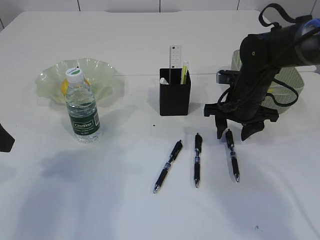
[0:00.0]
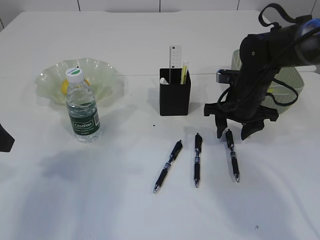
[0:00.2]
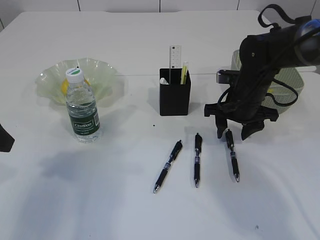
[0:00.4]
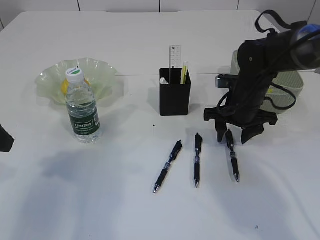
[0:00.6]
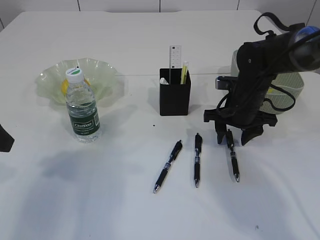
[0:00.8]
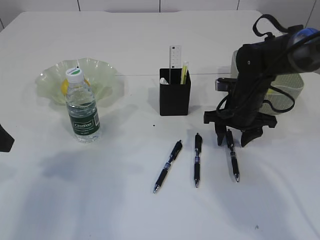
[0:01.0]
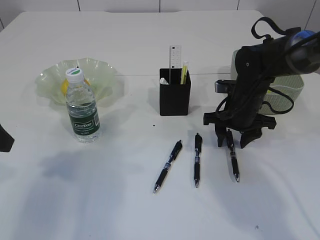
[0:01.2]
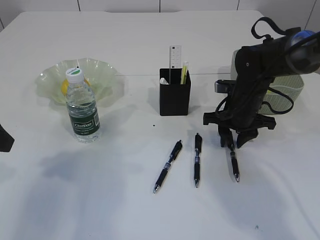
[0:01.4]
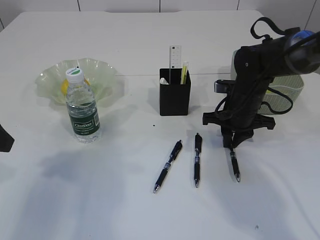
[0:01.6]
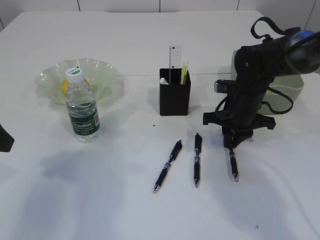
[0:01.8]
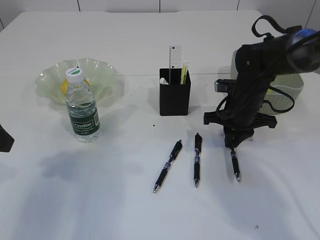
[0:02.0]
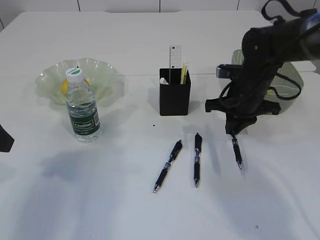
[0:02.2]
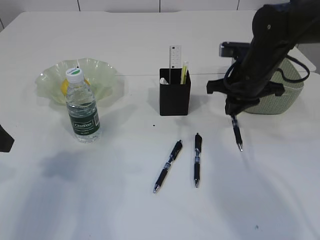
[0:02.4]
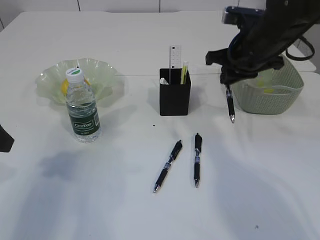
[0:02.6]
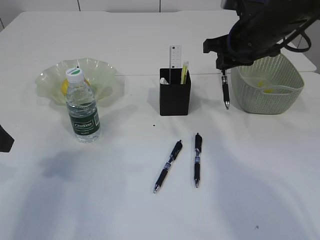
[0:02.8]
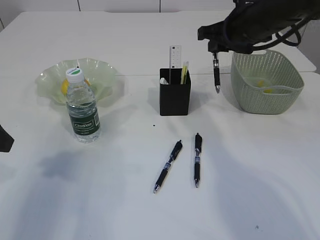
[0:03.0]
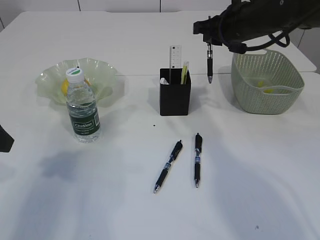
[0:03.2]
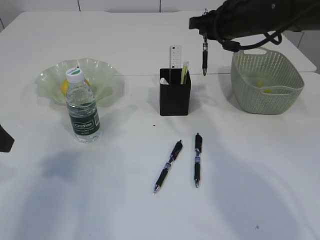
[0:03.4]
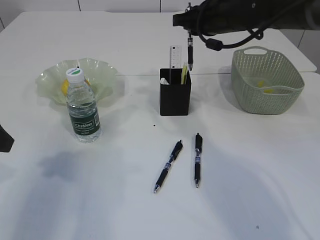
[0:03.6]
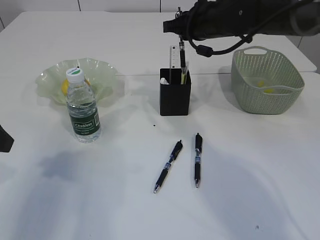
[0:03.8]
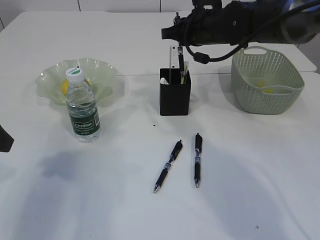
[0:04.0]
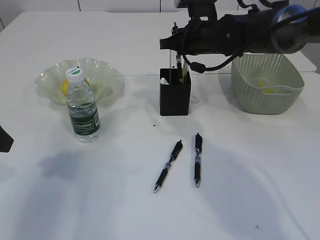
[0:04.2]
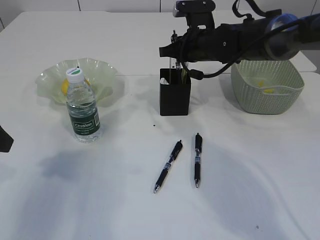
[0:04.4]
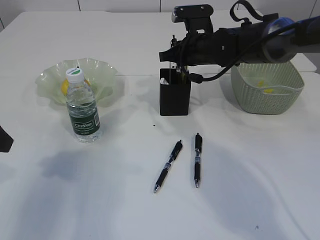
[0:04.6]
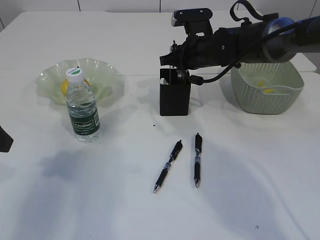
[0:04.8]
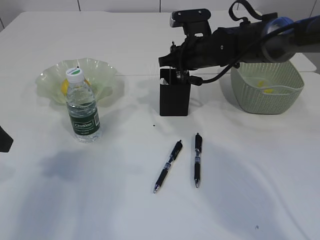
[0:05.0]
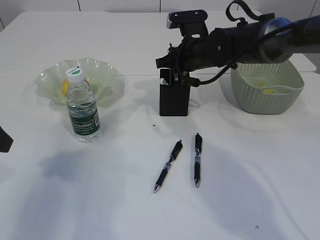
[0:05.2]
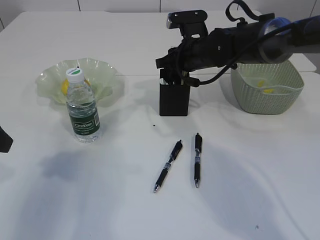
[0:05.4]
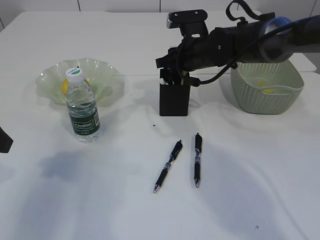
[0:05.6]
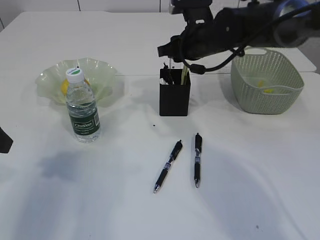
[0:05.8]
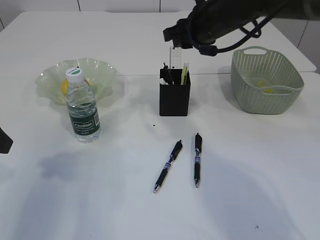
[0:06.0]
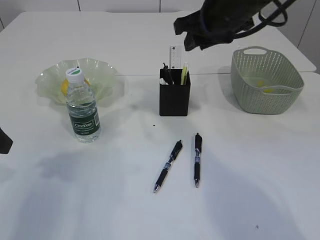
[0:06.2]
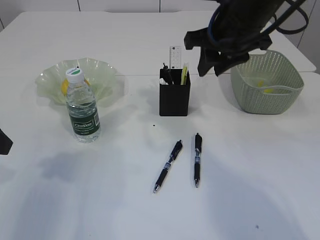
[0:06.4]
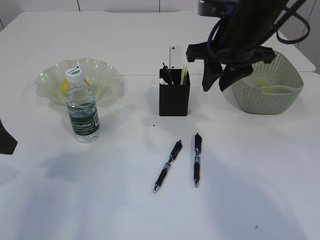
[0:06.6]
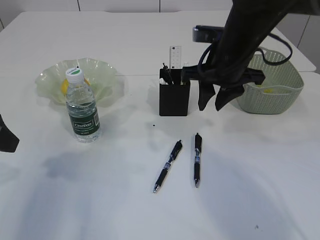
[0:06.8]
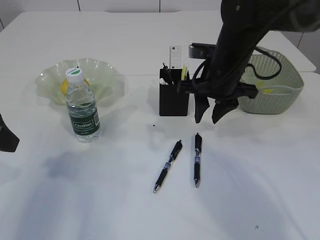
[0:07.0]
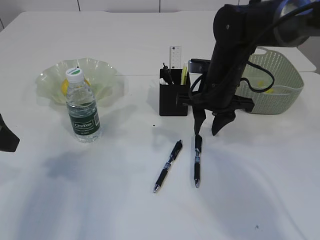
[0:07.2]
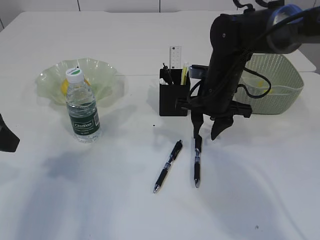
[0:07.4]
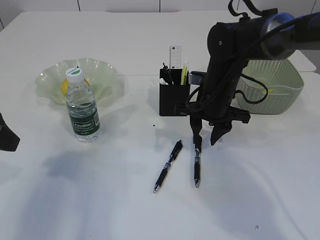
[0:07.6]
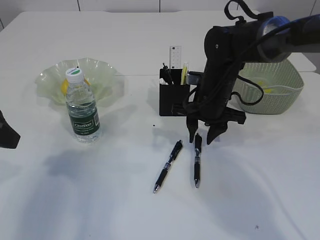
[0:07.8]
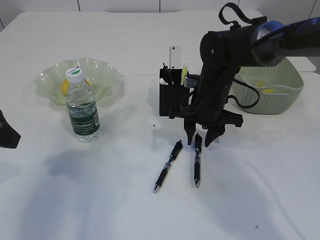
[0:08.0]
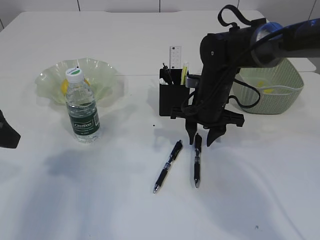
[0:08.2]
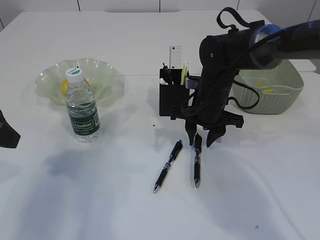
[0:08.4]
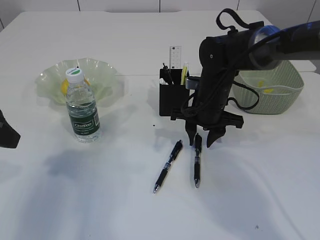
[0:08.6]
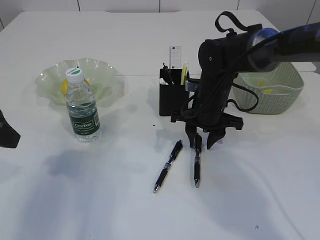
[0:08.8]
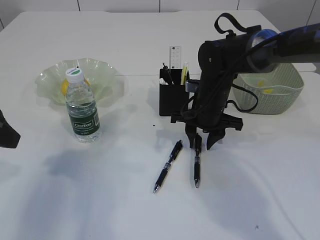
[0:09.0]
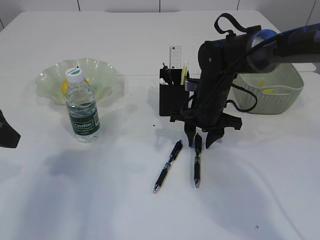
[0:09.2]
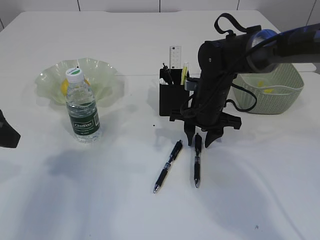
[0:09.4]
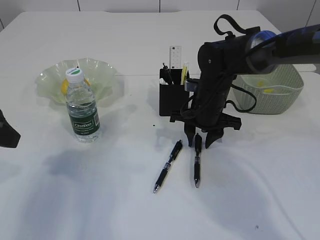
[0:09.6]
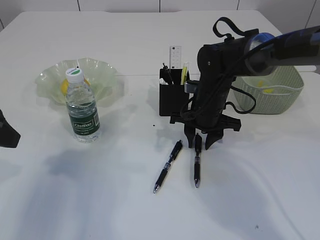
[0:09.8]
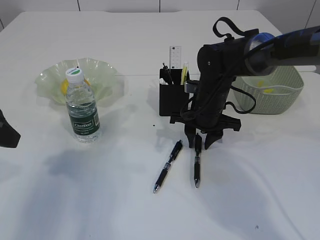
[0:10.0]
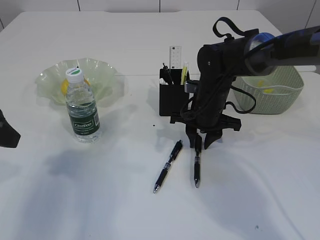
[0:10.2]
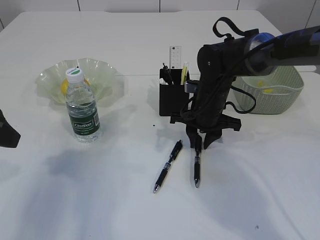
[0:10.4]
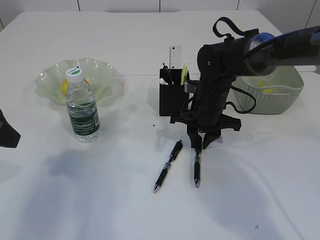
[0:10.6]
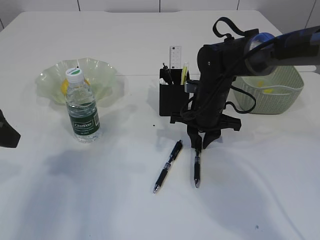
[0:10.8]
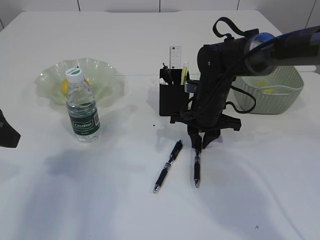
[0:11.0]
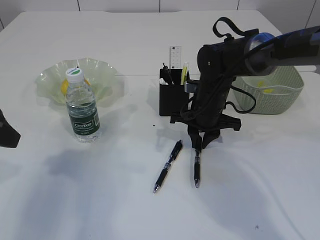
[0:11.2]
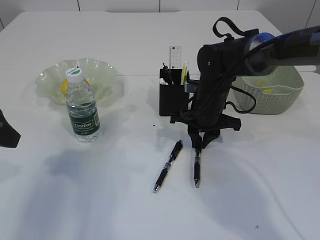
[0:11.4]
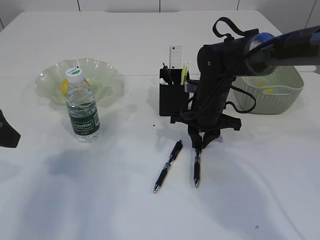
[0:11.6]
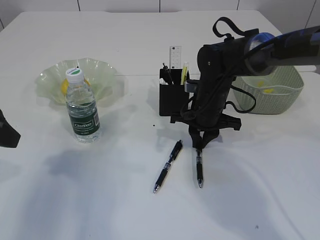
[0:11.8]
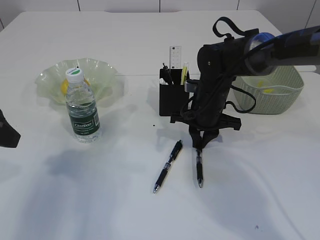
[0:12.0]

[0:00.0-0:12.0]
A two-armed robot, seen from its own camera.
Step, 0:00.0 to 0:02.2: Pick up the pen with right arm.
Step, 0:02.4 to 0:05.8: Place the pen into the pen holder.
0:00.0 to 0:01.6: The right gripper closes up.
0:01.6 to 0:03.0: The right gripper travels upward by roughly 15 cm.
0:03.0 to 0:04.4: The right gripper goes roughly 10 cm downward, to the left and forward.
0:04.4 to 0:06.0: The right gripper heads upward, covering roughly 5 cm, and opens its fingers.
0:06.0 to 0:07.6: The right gripper heads downward, covering roughly 10 cm.
0:07.6 to 0:09.0: The grippers stay close to where they were, moving slightly.
0:09.0 to 0:12.0: Both grippers stay about where they are.

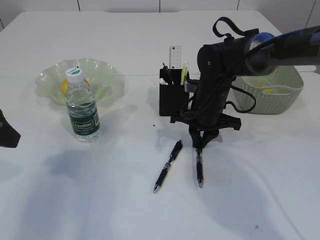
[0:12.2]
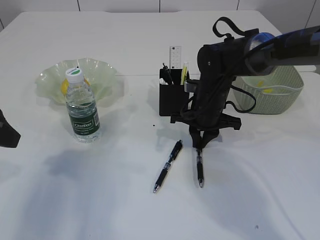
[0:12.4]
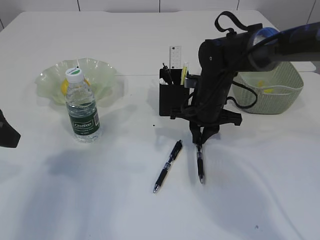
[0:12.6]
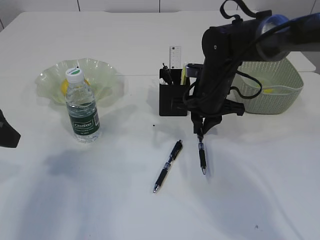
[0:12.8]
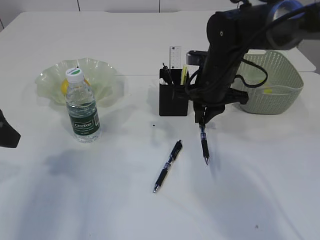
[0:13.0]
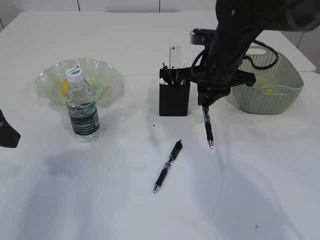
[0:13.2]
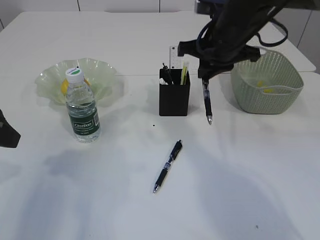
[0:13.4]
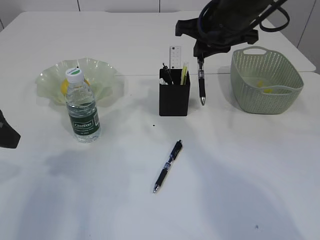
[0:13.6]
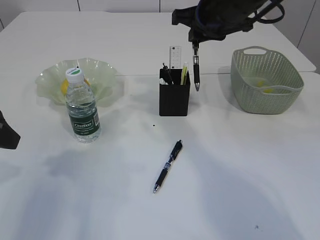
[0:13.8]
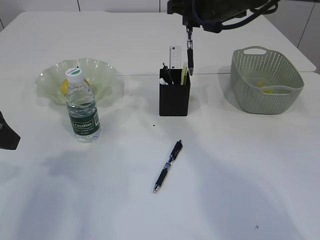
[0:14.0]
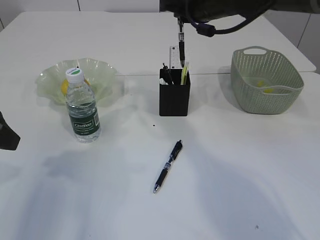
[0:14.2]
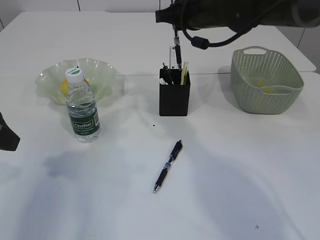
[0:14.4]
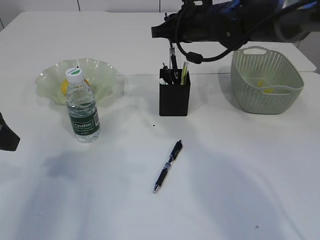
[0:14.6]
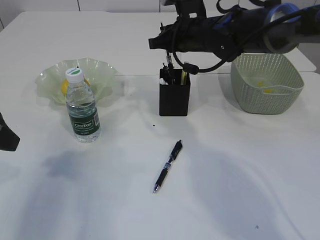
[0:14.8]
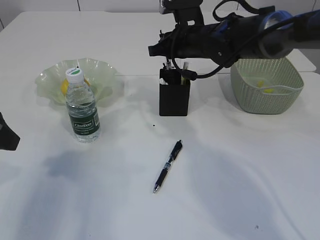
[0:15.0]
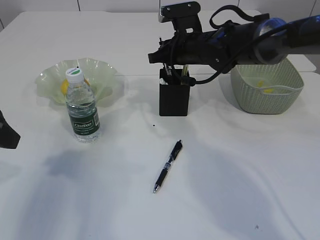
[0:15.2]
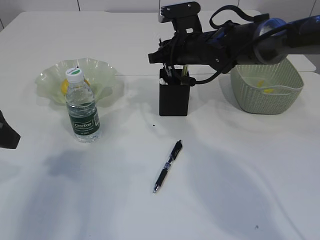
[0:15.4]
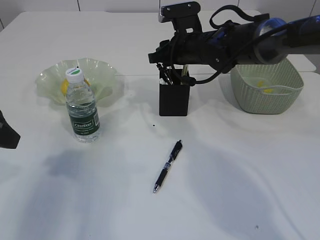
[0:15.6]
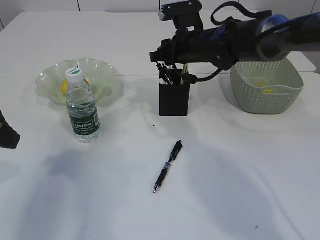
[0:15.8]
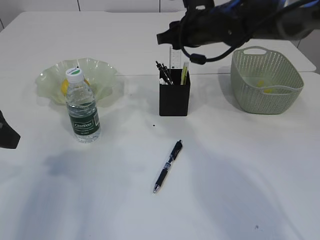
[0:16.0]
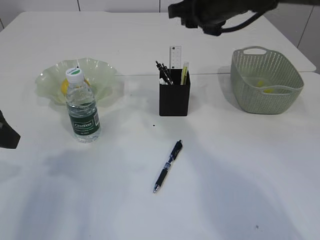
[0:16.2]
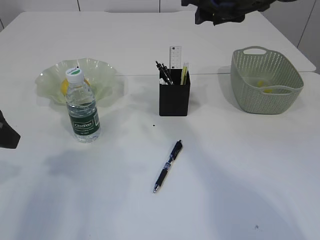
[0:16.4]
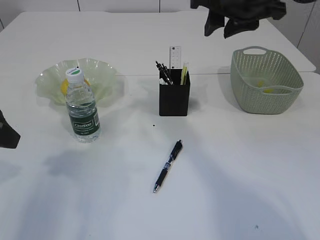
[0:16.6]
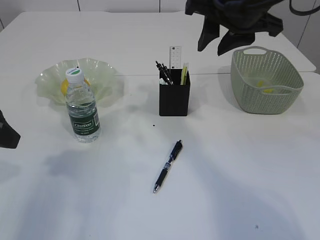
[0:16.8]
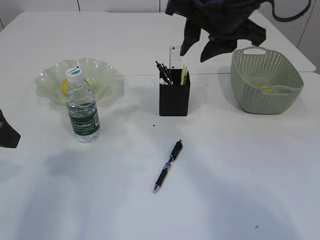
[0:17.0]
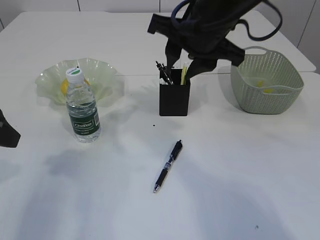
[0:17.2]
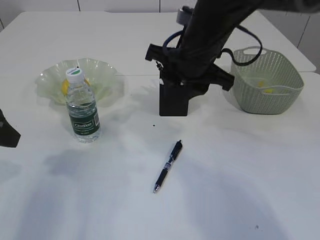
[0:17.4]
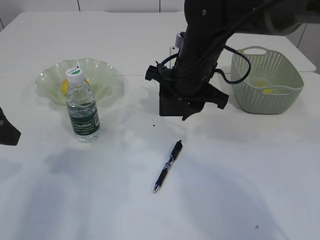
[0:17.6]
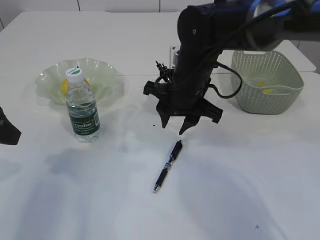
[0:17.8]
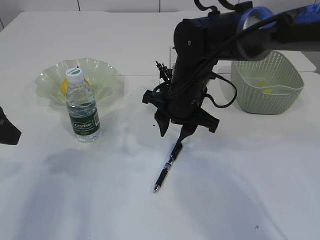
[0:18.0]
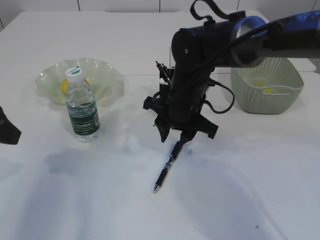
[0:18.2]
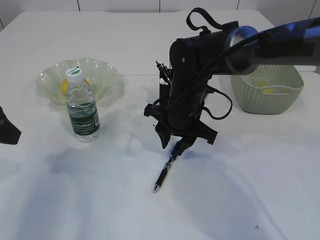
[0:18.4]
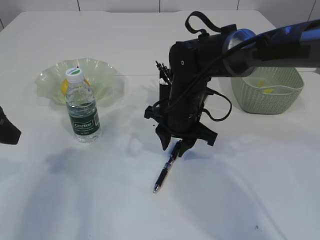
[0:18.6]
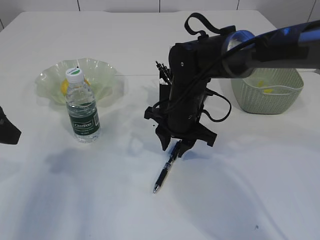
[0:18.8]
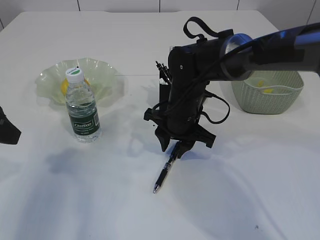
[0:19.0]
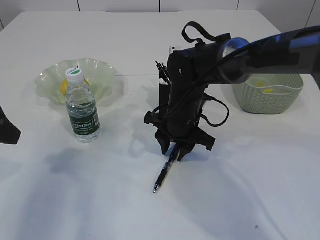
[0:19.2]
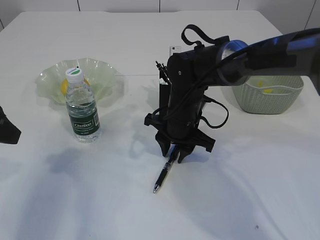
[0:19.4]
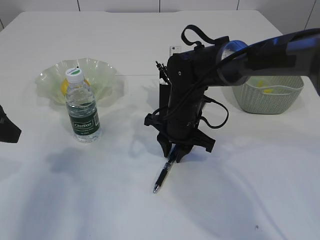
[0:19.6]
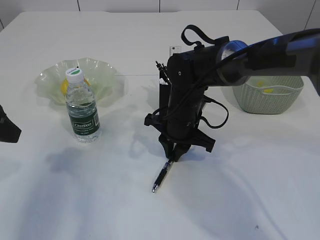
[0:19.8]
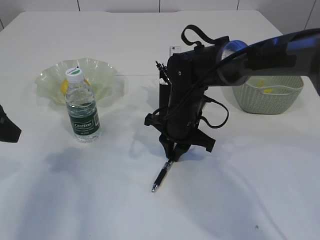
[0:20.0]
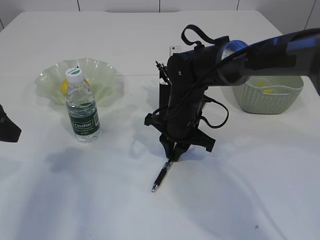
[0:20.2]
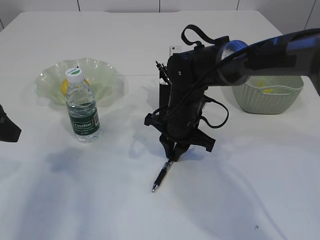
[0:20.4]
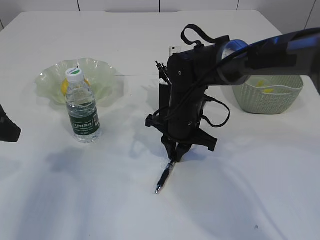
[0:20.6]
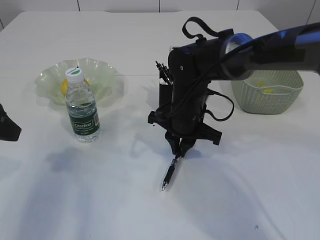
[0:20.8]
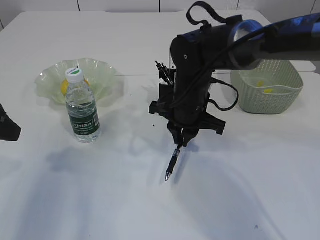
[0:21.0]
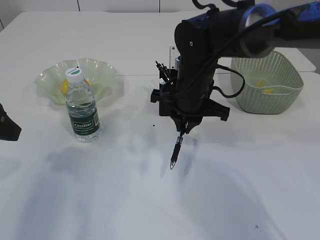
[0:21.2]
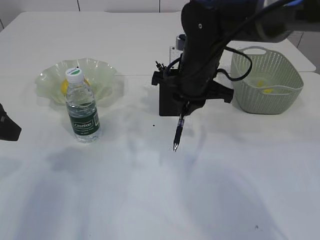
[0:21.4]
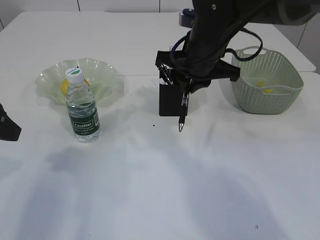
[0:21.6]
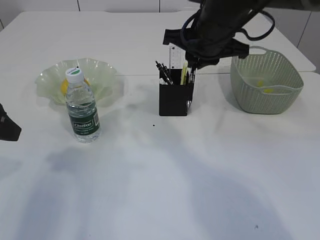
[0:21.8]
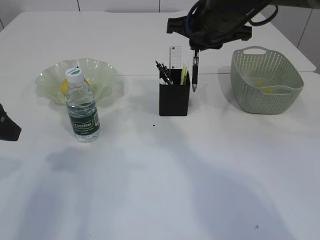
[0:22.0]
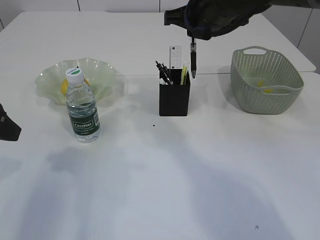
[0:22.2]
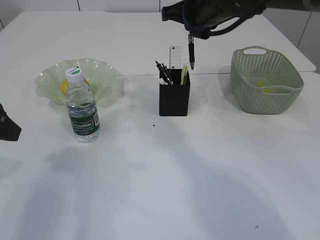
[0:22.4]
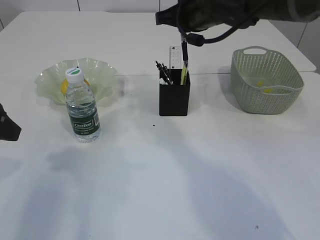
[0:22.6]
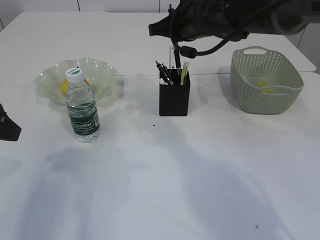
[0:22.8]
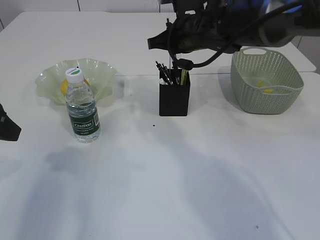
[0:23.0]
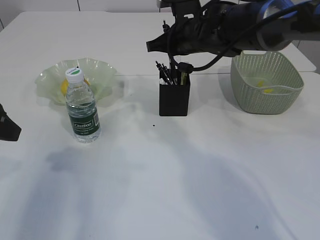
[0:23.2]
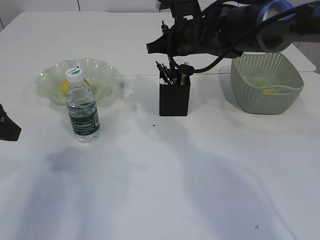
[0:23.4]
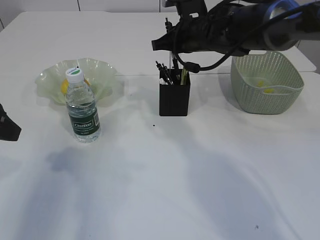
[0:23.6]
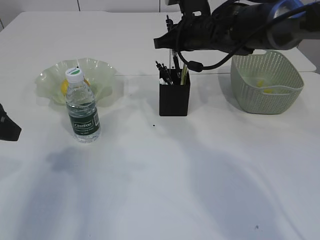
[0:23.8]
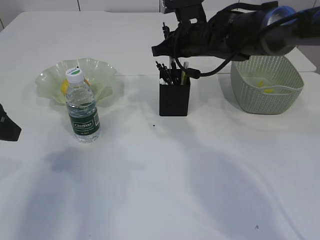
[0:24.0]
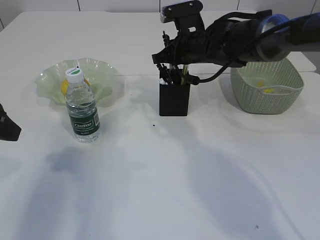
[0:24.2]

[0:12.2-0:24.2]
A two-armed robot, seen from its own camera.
Step, 0:13.0 to 0:15.8: Place the pen into the pen holder.
Step, 0:16.0 to 0:20.8: Pick up the pen with right arm.
0:12.2 to 0:13.8: The right gripper travels upward by about 20 cm.
0:13.8 to 0:15.2: The right gripper travels downward and forward by roughly 10 cm.
0:15.2 to 0:16.6: The right gripper shifts approximately 20 cm upward and backward, and opens up.
0:16.6 to 0:18.2: The right gripper heads downward and to the left, covering some 20 cm.
0:18.2 to 0:19.8: The grippers move only a little.
0:19.8 to 0:21.2: The right gripper shifts approximately 5 cm upward.
0:21.2 to 0:22.6: The right gripper is displaced upward and forward by roughly 10 cm.
0:22.6 to 0:24.2: The right gripper goes some 10 cm downward.
